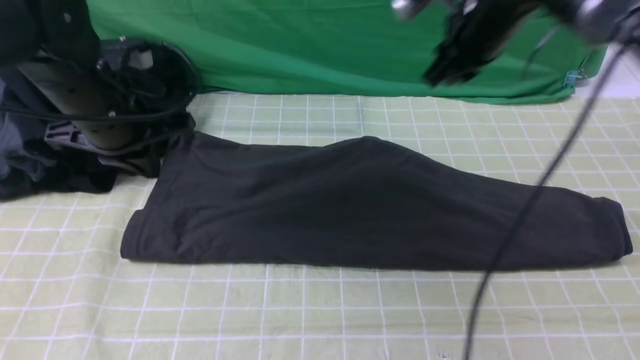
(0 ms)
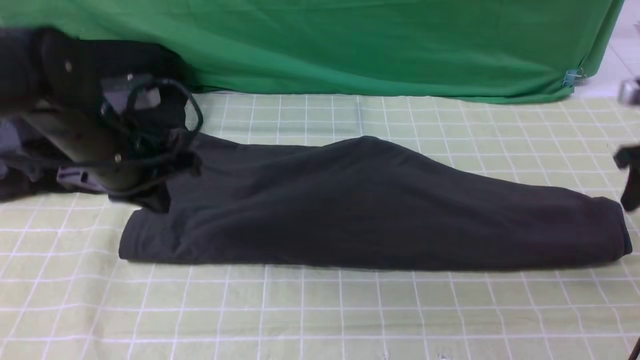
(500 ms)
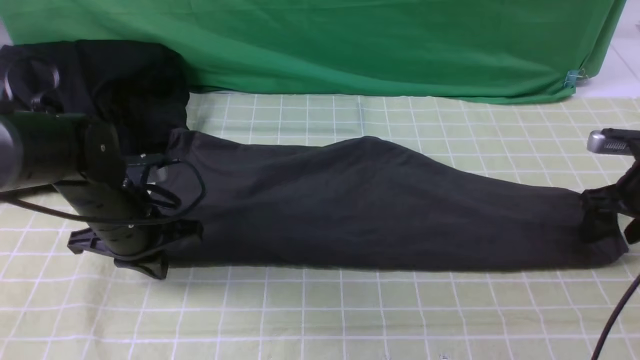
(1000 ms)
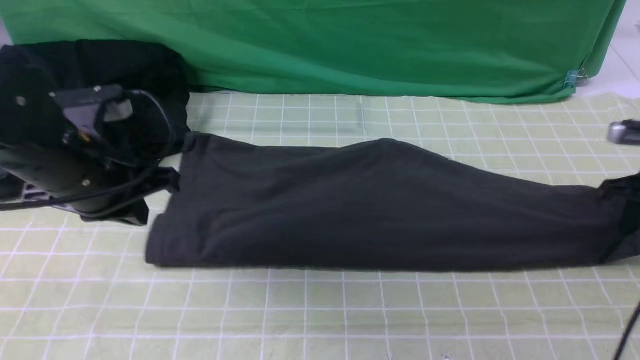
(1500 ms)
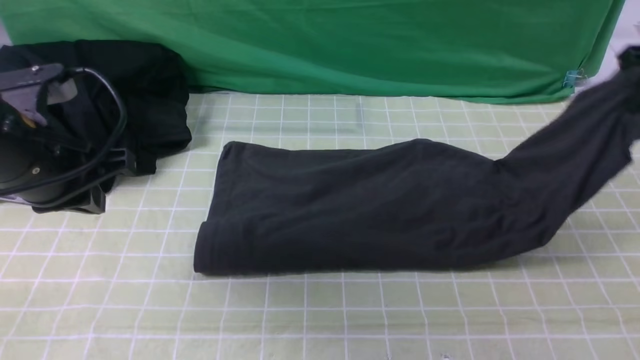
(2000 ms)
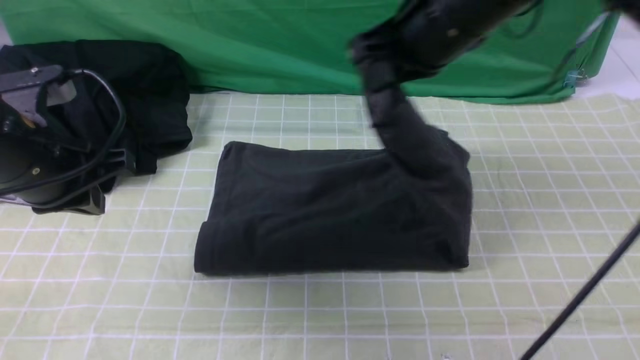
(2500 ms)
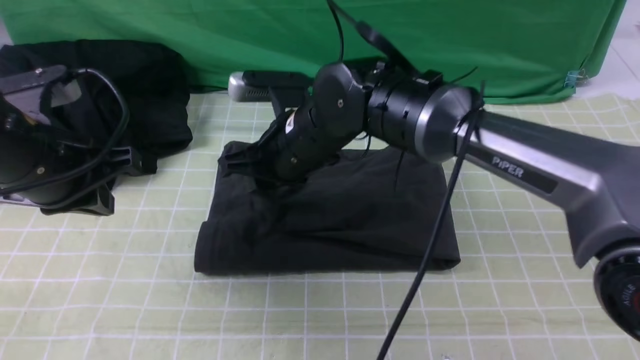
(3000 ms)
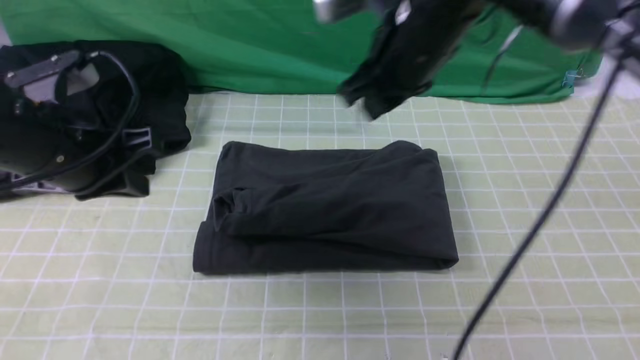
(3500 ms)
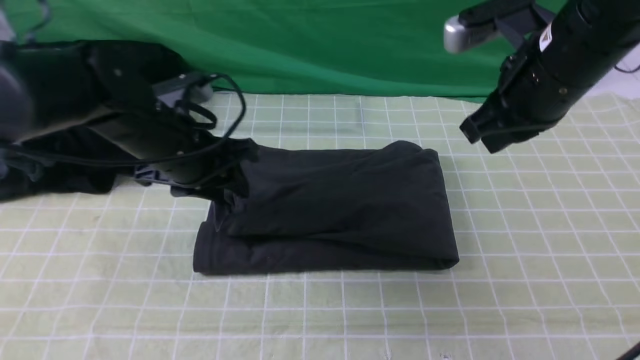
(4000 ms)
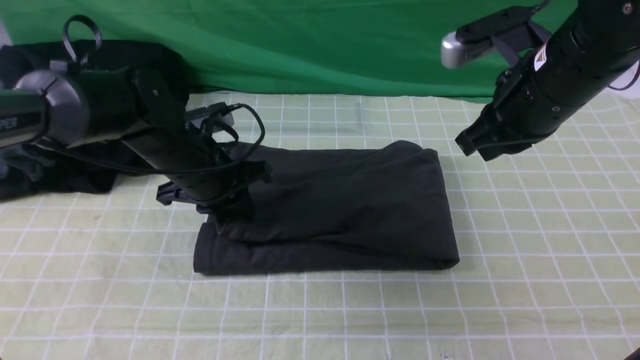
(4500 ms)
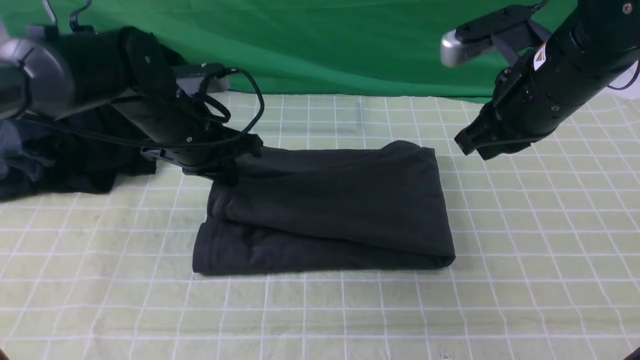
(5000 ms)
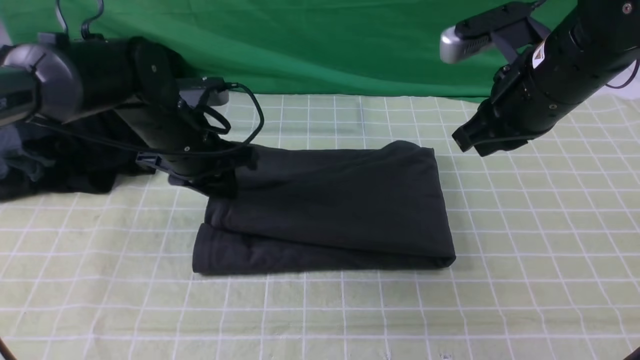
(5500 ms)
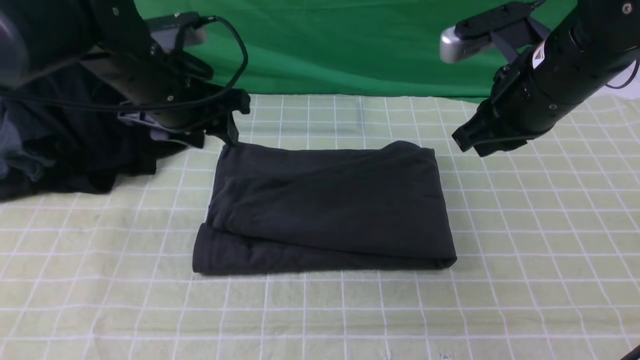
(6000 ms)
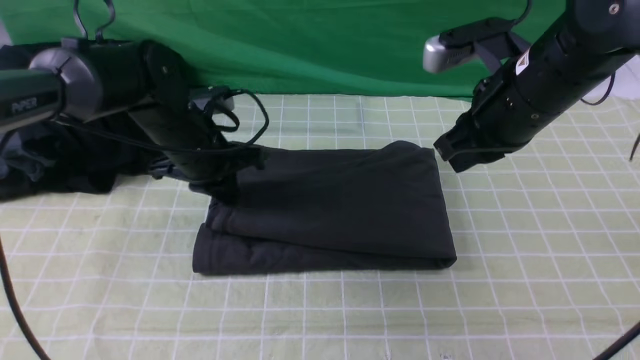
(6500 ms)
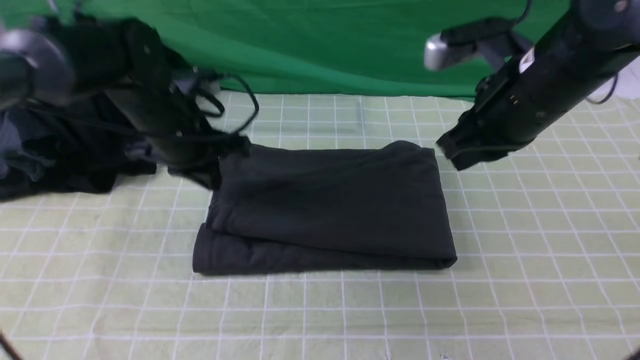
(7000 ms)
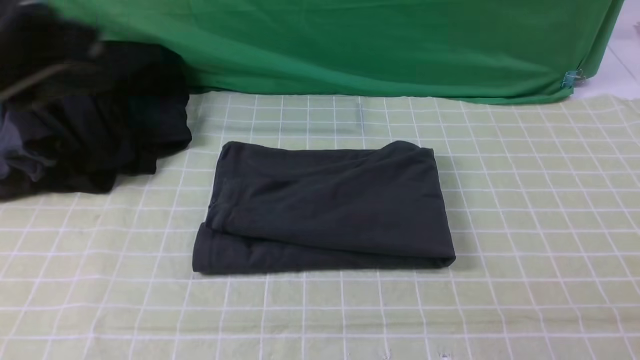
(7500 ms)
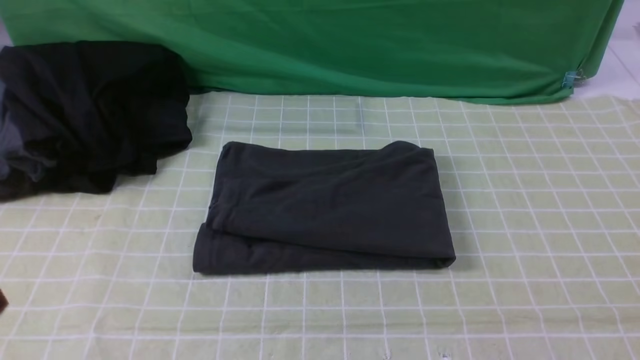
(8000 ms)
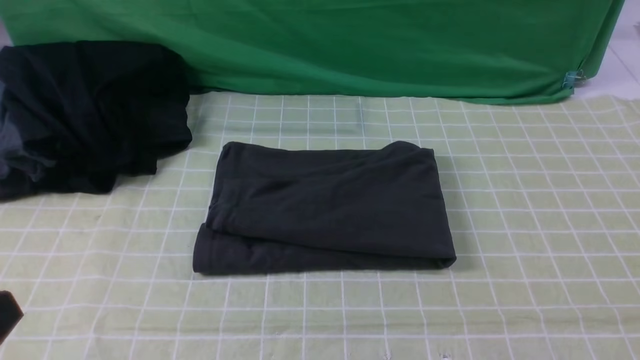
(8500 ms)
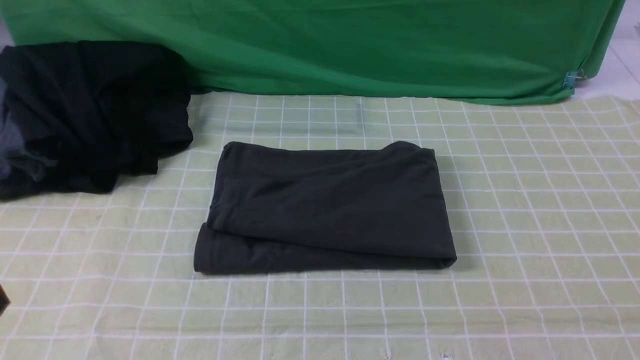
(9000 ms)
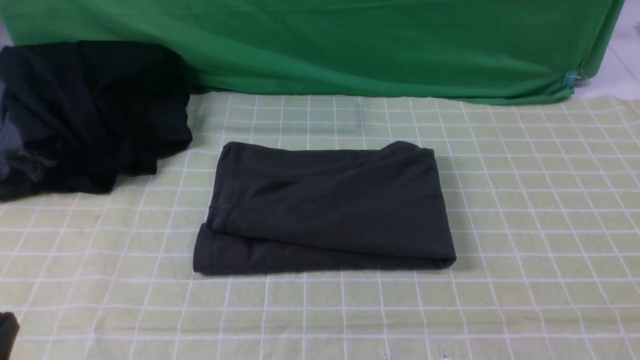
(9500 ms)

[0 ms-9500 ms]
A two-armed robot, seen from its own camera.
Step, 1500 ms to 3000 ms: use the right arm to drag the right edge of the fabric to the left and folds it over the left edge.
0 ms to 2000 ms: The right gripper goes approximately 15 cm to the right and backward, and opens, then closes again, while the left gripper shifts some 10 cm backward, and travels downward and back again, approximately 10 cm each way.
2000 ms to 4000 ms: The right gripper heads to the left and backward, covering roughly 15 cm, and opens, then closes again. Meanwhile the left gripper heads forward, to the right and downward, covering approximately 15 cm, and opens.
4000 ms to 5500 ms: The left gripper closes, then reopens.
5500 ms to 7500 ms: The right gripper travels backward, upward and to the right by some 25 cm, while the left gripper heads backward and upward, covering some 30 cm, and closes its fingers.
7500 ms to 9500 ms: The left gripper moves downward and backward, approximately 25 cm.

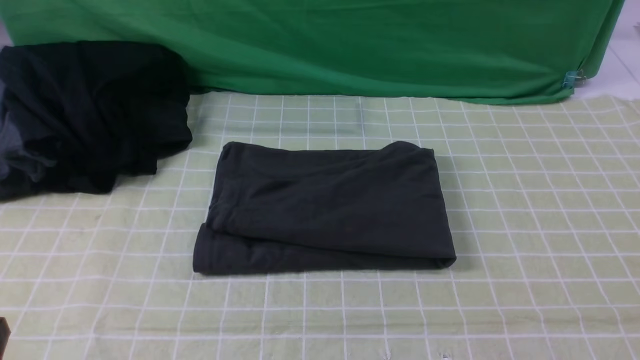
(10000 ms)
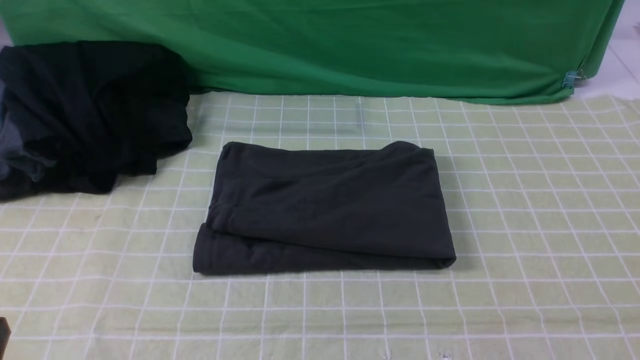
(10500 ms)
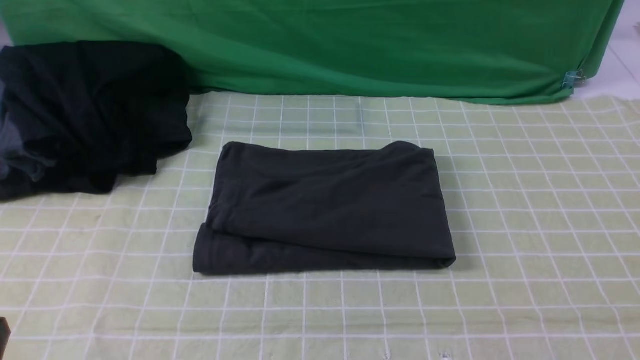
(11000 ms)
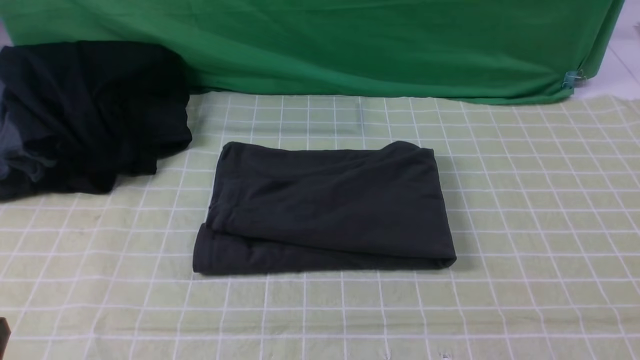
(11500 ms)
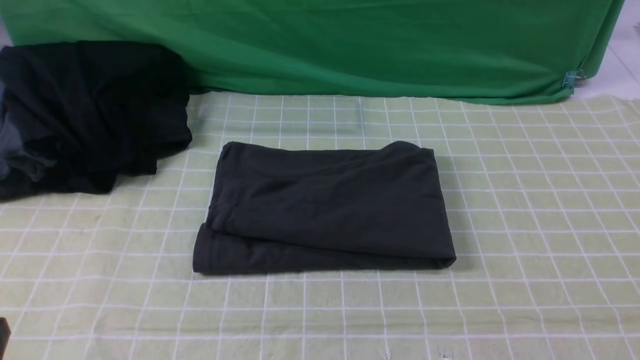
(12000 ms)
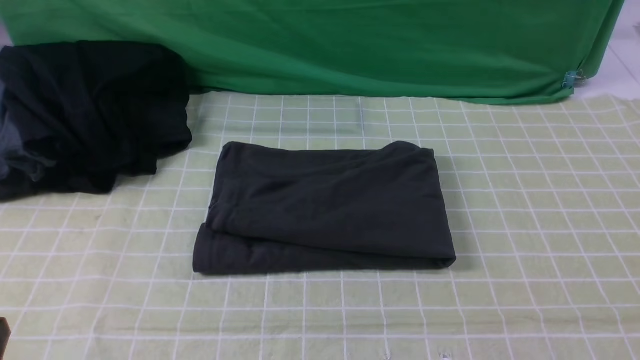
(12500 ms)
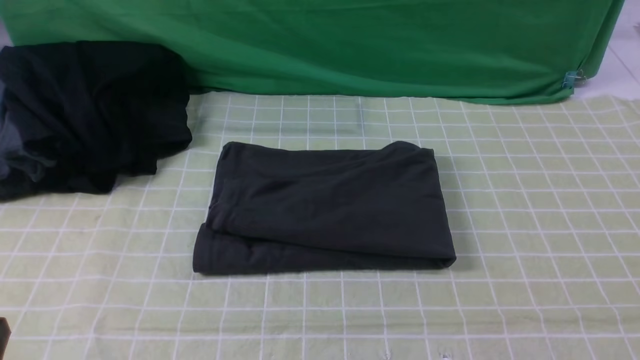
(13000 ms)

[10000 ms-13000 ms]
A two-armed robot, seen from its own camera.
11500 ms to 13000 ms: The two grippers keep their place.

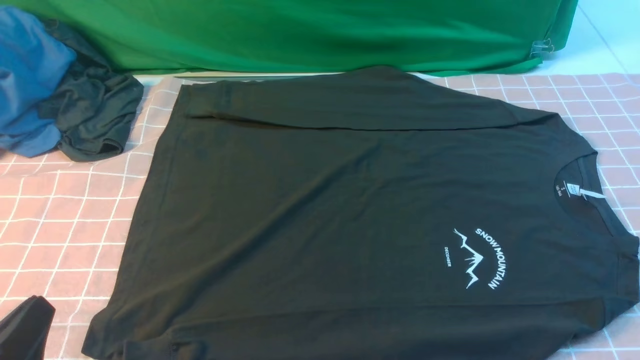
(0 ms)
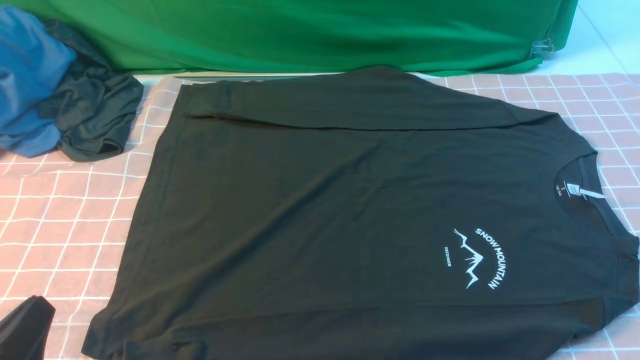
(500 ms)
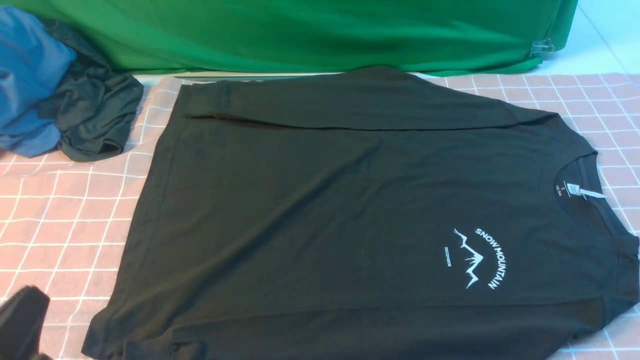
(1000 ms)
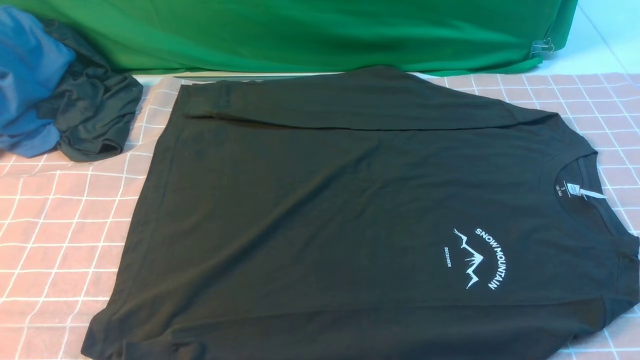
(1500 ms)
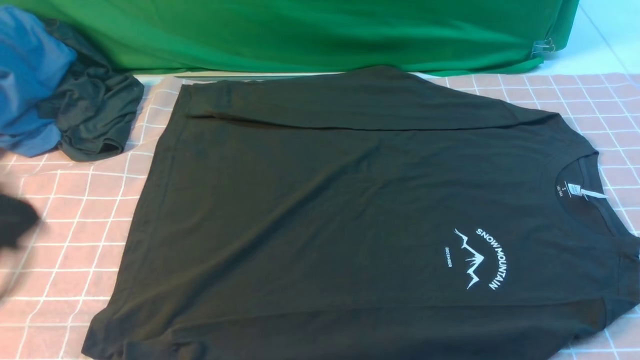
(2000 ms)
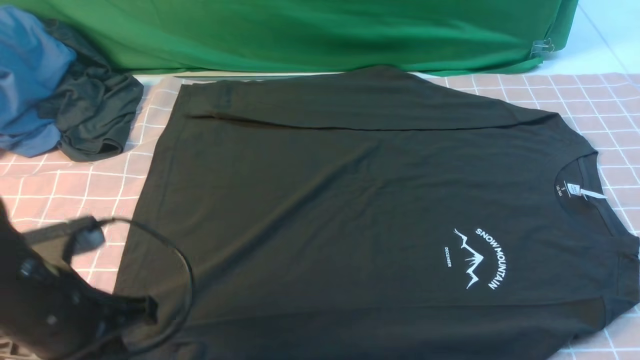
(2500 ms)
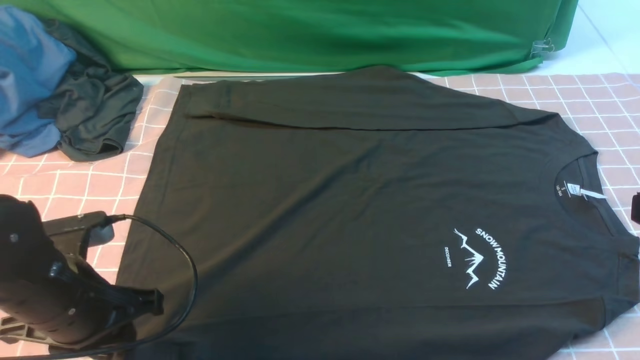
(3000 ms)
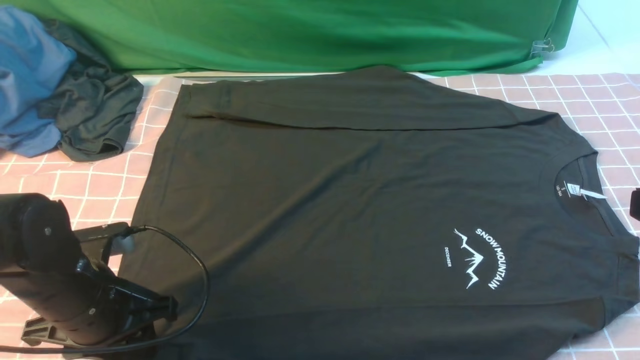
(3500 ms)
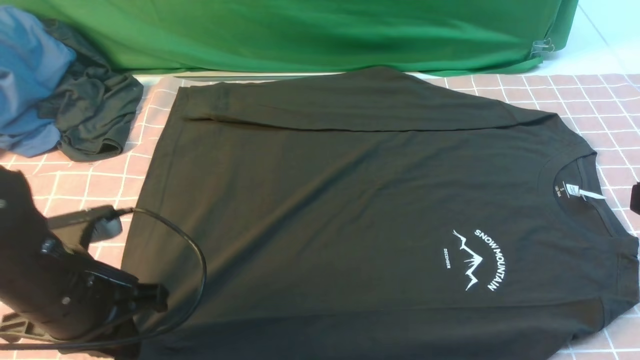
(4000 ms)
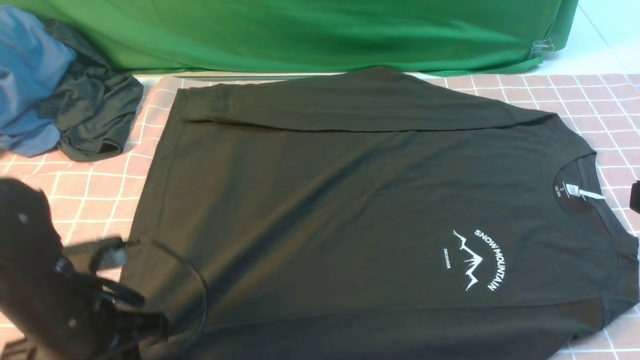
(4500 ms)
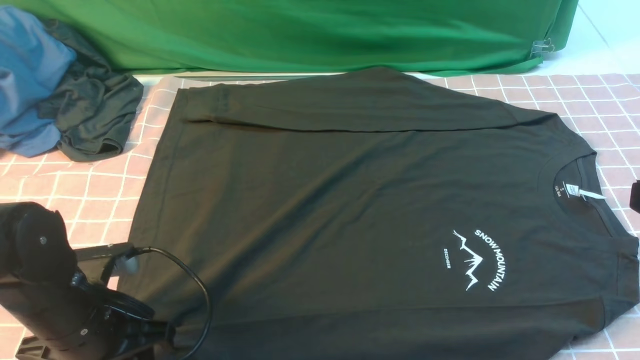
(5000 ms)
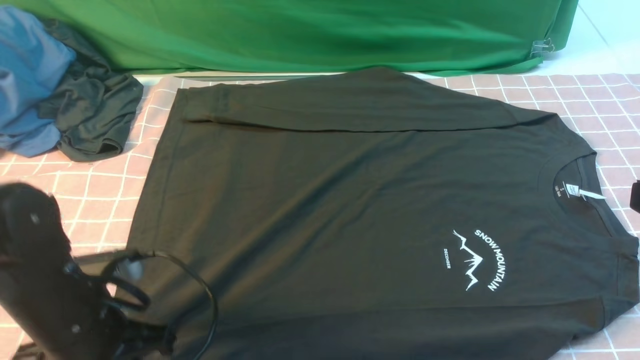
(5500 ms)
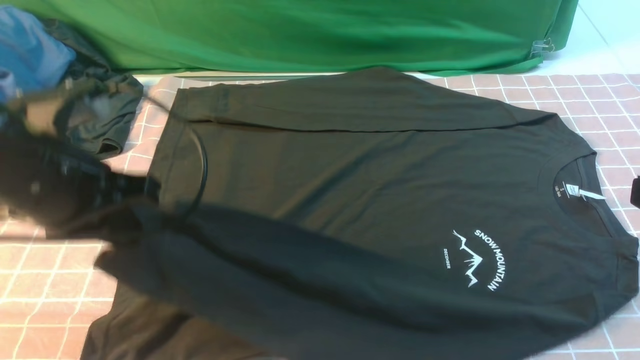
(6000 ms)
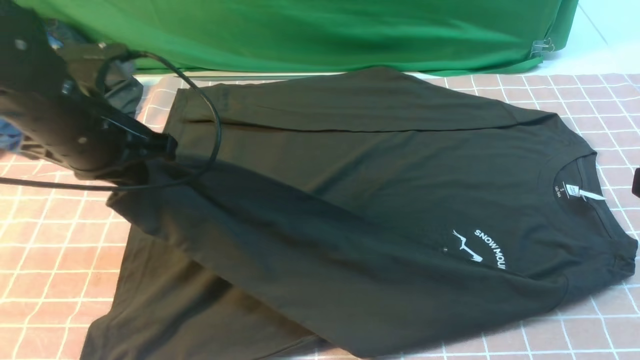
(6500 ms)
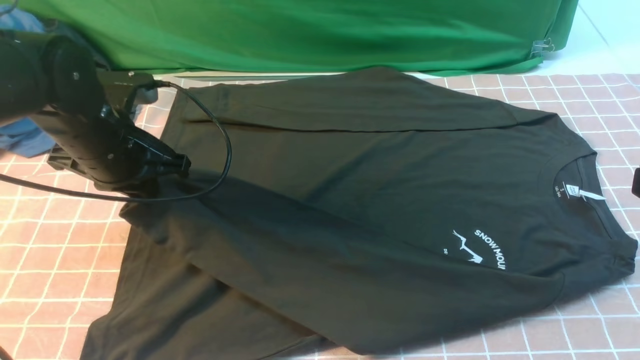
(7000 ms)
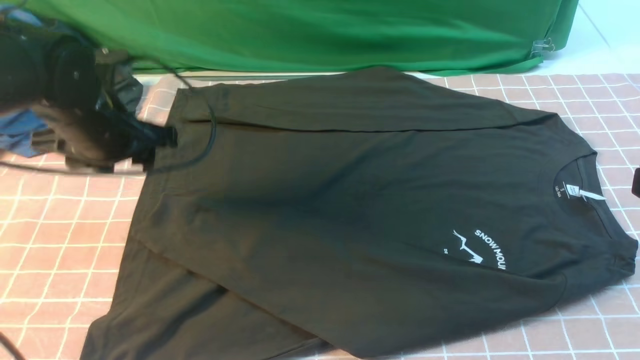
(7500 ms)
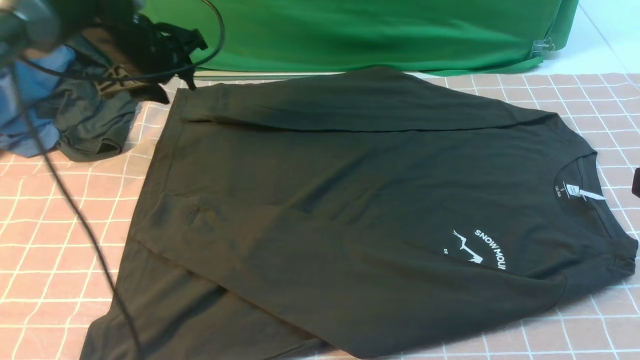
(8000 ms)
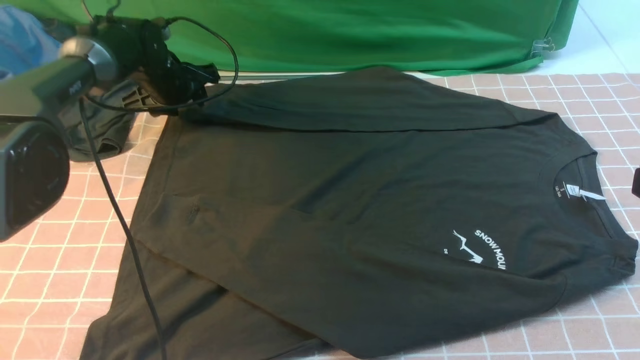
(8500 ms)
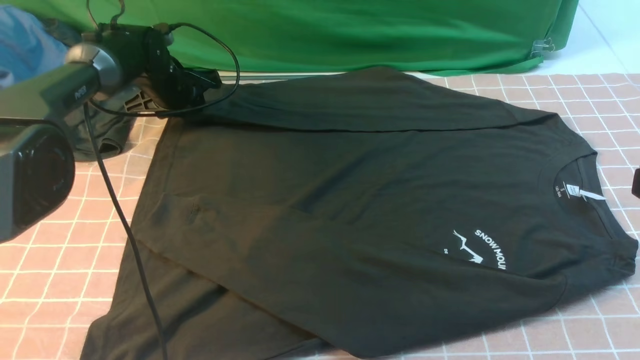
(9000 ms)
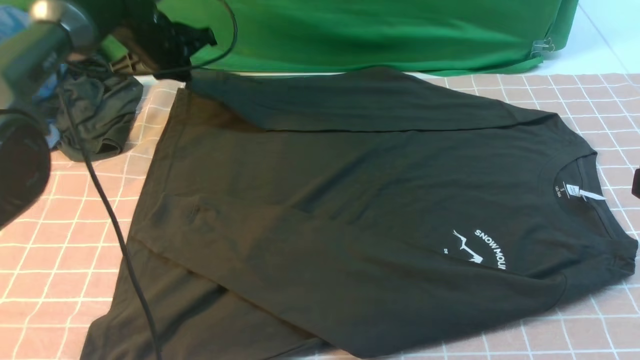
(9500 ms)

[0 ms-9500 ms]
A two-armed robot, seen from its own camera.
Step, 0 ms to 5000 ms: use the left arm to clamp the cuff closest to it.
Step, 5500 ms to 7000 ms: use the left arm to drag and place the cuff at the centered position on the left edge of the fabric.
0 ms to 2000 ms: The left gripper travels upward and forward by about 15 cm.
2000 ms to 4000 ms: The left gripper goes roughly 15 cm downward and forward, and opens, then closes again. The right gripper shifts about 10 cm forward and upward.
4000 ms to 5500 ms: The left gripper opens and closes again.
5500 ms to 7500 ms: The left gripper moves forward, about 15 cm, and opens.
7500 ms to 9500 ms: The left gripper travels forward by about 15 cm, and closes.
